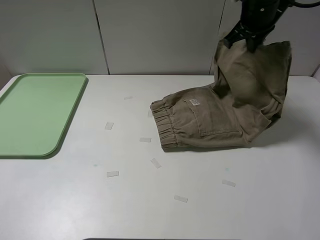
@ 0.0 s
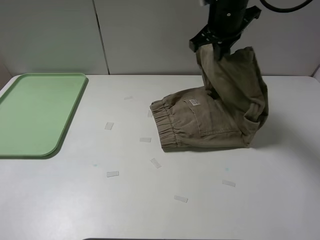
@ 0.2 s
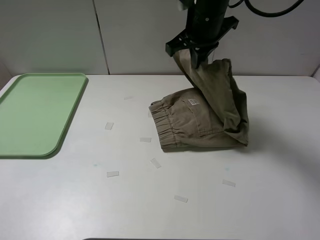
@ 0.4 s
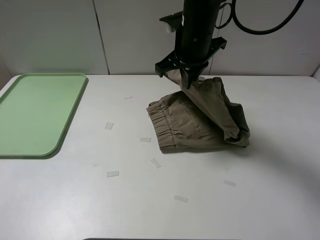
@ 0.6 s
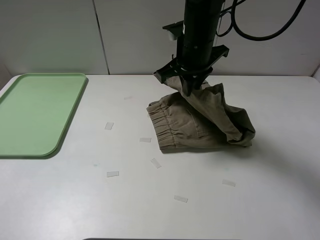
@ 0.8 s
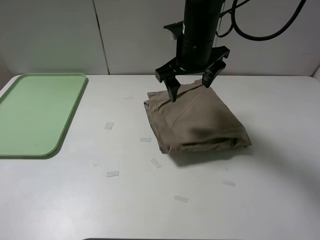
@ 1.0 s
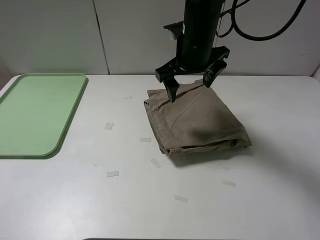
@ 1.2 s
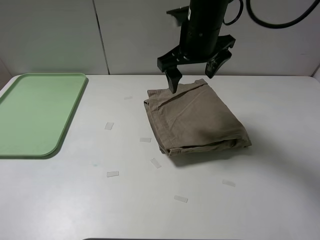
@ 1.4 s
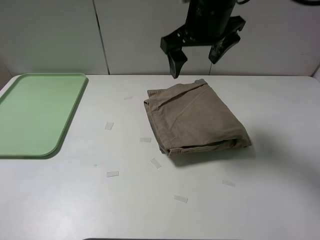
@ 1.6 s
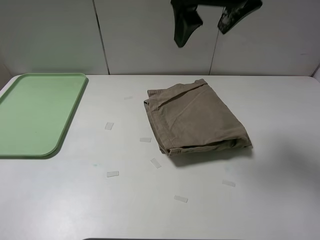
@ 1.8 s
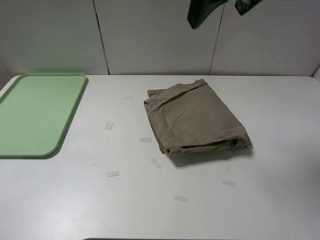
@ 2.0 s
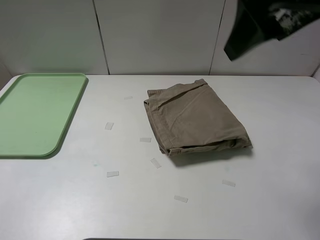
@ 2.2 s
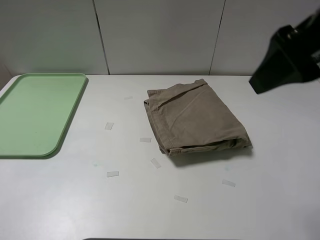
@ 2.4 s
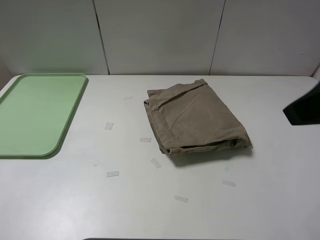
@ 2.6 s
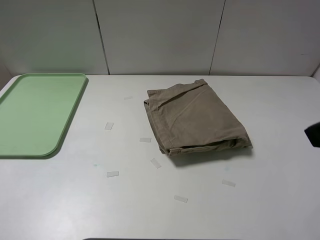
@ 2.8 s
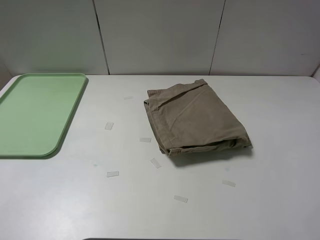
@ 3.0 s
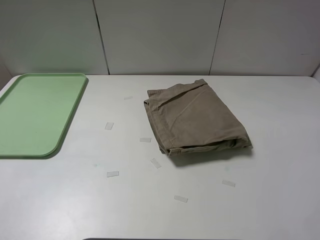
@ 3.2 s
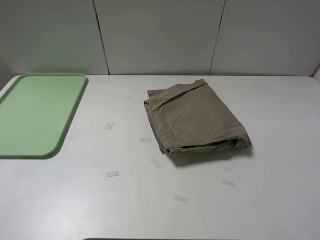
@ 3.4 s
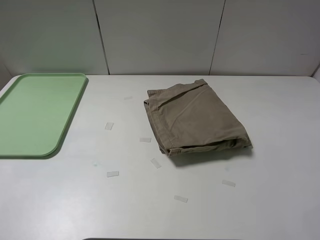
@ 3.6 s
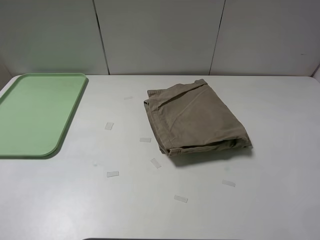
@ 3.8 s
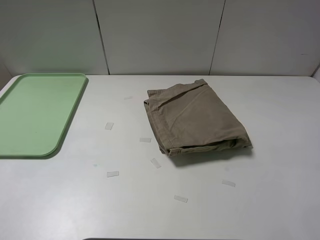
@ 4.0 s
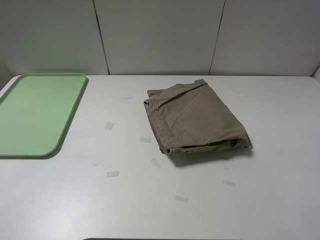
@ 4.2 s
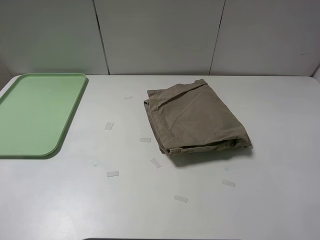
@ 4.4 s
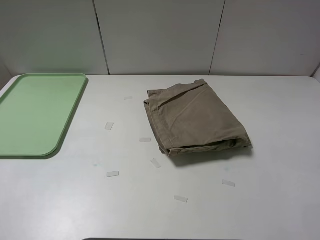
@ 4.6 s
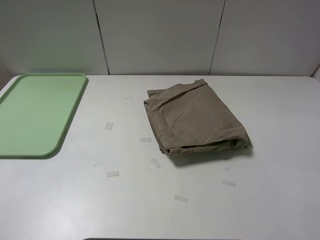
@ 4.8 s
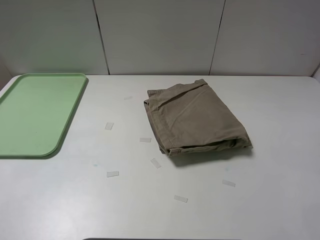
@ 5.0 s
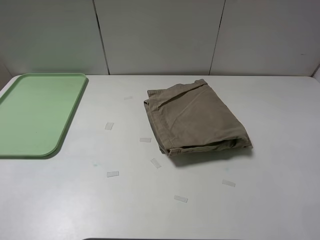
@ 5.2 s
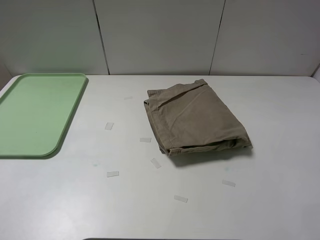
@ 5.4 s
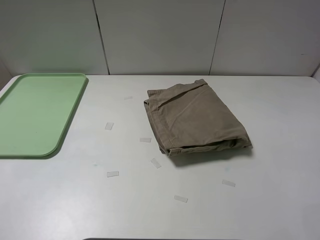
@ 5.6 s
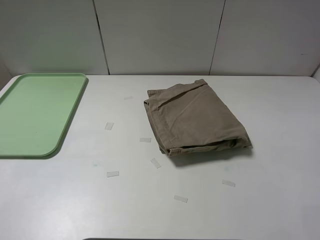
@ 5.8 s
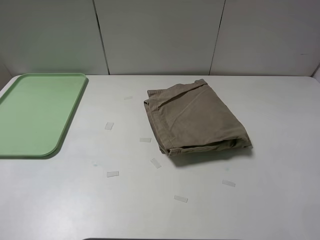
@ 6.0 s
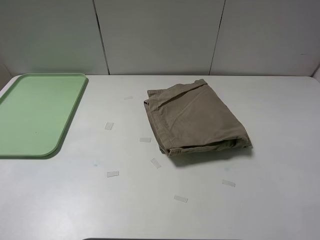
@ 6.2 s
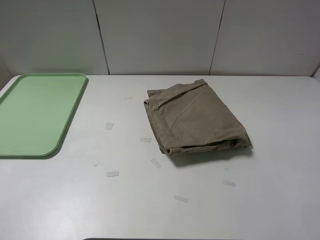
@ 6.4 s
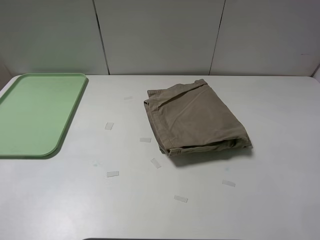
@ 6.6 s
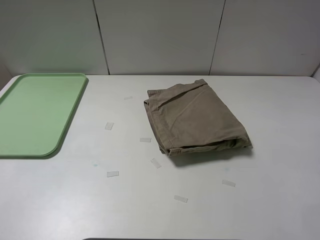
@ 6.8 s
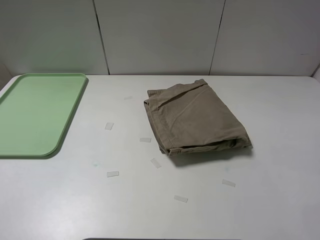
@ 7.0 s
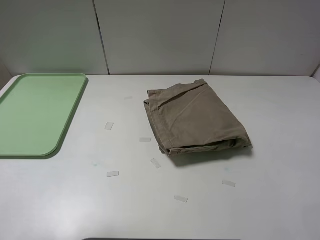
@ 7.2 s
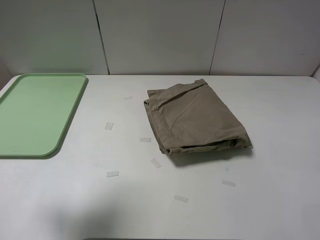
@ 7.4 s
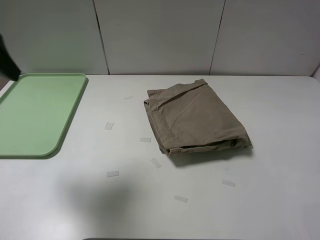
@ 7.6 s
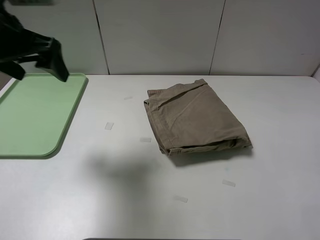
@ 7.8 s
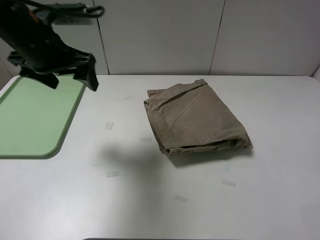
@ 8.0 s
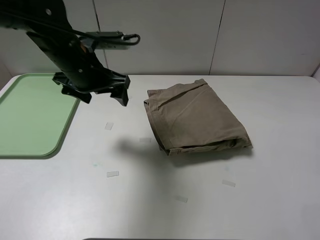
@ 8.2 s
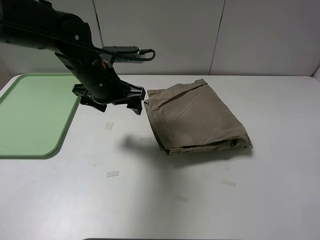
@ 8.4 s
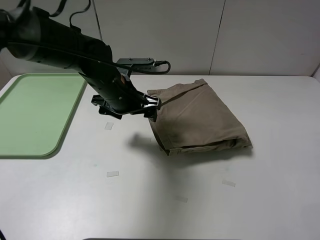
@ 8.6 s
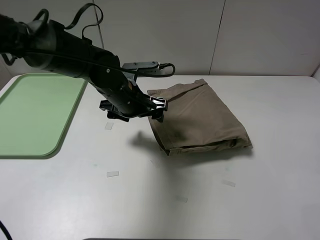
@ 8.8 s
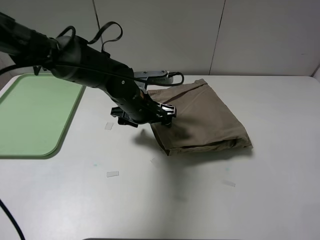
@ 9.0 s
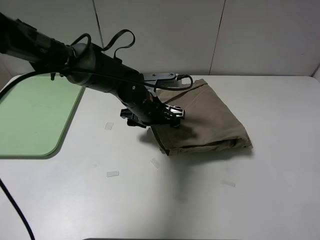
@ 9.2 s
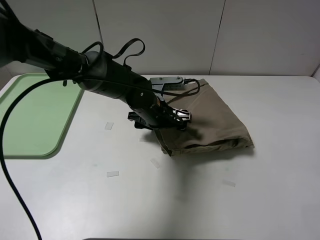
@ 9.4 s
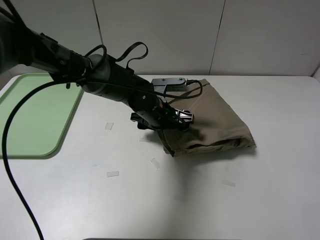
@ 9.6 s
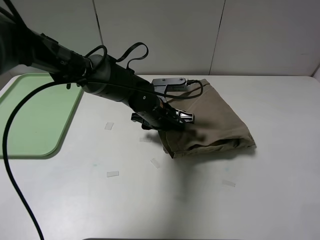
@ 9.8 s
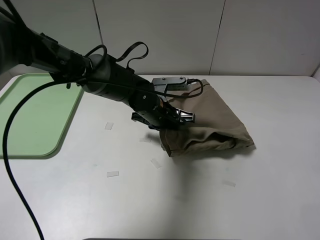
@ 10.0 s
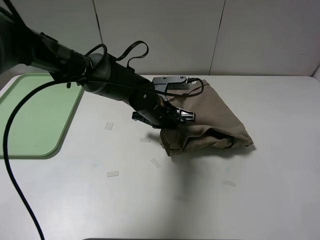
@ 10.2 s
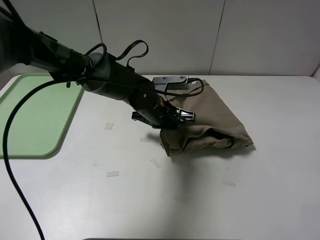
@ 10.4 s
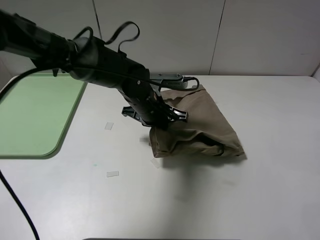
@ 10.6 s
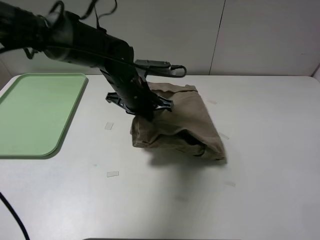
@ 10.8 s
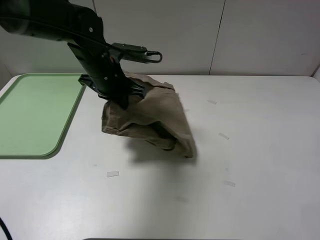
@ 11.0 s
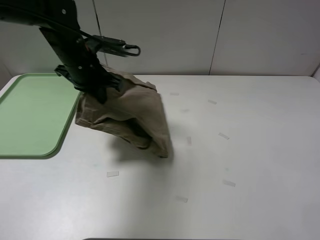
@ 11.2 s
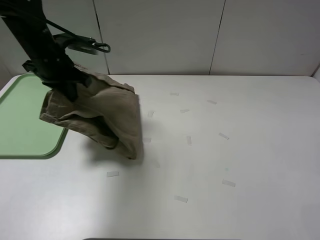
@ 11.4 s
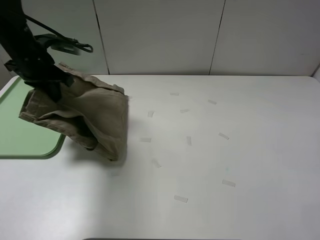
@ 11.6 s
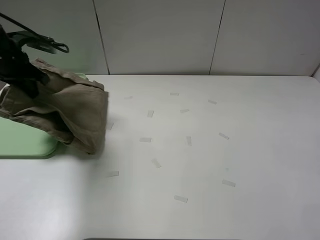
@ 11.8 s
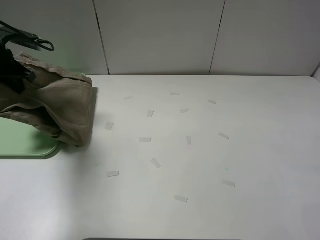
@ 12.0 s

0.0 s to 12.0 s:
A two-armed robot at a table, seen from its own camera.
Task of the whole recording: fold the khaki jeans in half with two grippers, then fold them in half again, and use the left claw to place the folded fold khaki jeans on the tray.
Step, 1.2 to 10.0 s: Grasp the khaki trousers with the left gripper.
0.0 to 1.6 s: The right gripper is displaced backward and to the left by about 15 cm, and opens up.
1.6 to 3.0 s: The right gripper heads backward and to the right, covering some 30 cm.
4.4 to 6.0 s: Neither gripper changes place.
6.0 to 7.6 s: The left gripper heads forward, covering roughly 25 cm.
7.6 to 9.0 s: The left gripper moves to the right and downward, approximately 30 cm.
9.0 to 10.4 s: The left gripper closes.
10.4 to 12.0 s: The left gripper heads to the left, covering approximately 35 cm.

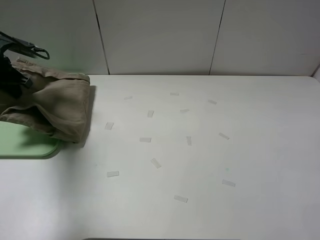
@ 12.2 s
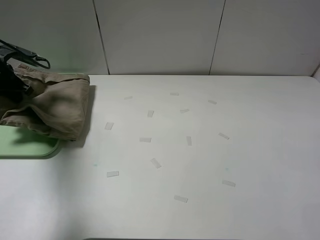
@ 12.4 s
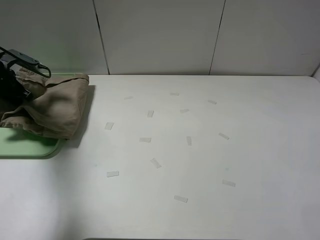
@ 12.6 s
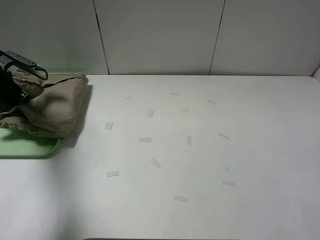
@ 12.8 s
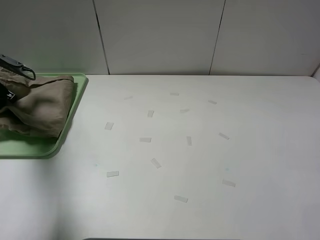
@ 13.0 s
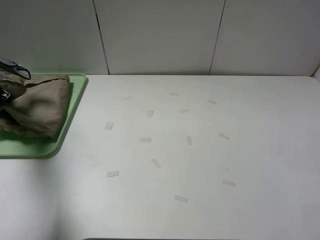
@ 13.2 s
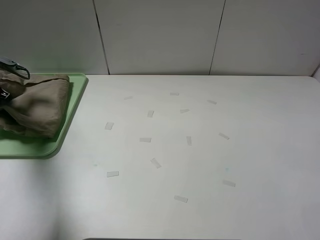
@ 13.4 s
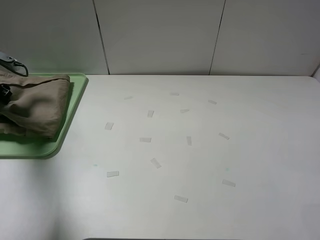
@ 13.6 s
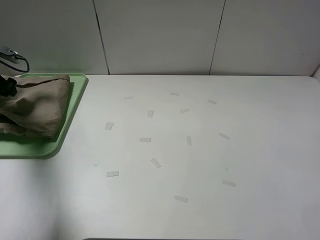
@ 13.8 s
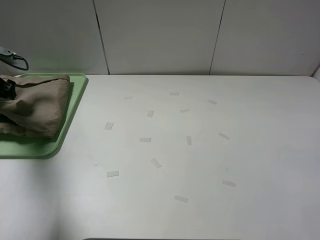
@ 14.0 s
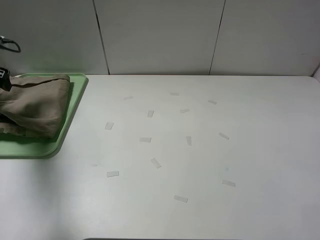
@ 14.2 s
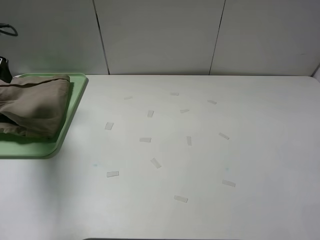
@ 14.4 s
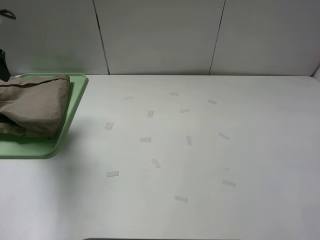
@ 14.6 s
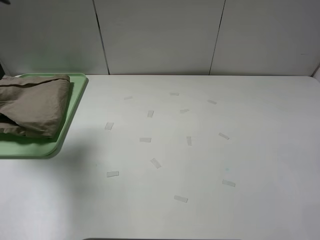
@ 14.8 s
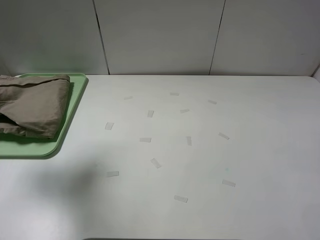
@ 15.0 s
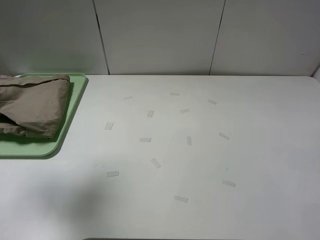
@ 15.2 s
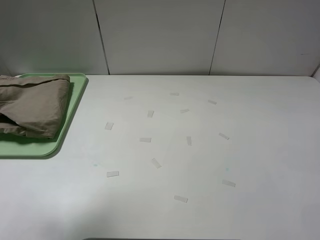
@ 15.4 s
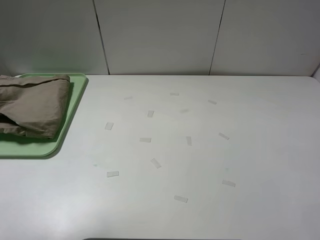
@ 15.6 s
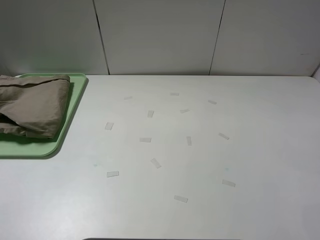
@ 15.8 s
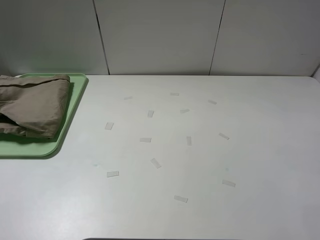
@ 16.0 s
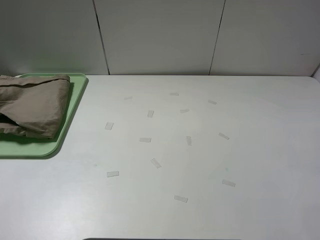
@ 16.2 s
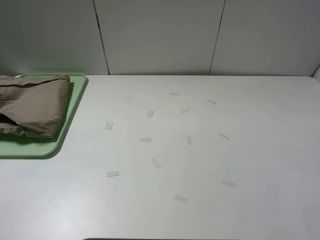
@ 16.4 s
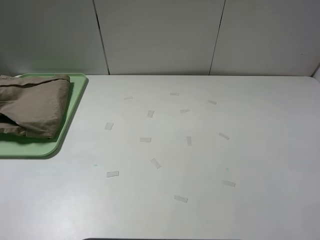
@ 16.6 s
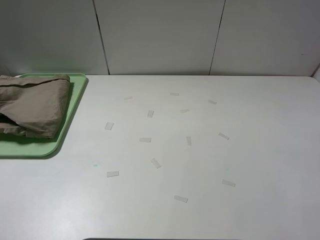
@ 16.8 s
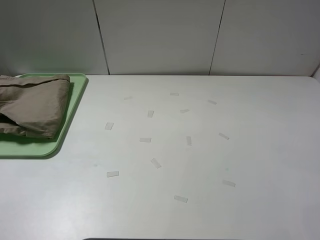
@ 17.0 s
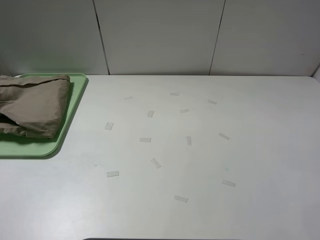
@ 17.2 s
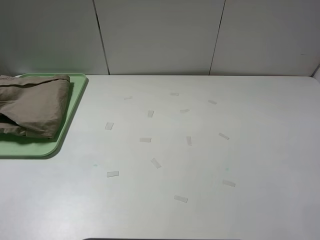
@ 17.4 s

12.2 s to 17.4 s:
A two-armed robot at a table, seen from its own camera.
Task of the whole recording: fold the khaki jeans in half with two grippers, then fold them in half again, and use the left claw to place the folded fold khaki jeans on the tray.
12.2 to 14.0 s: The left gripper travels to the left by about 5 cm, and opens up.
14.0 to 15.6 s: The left gripper shifts roughly 40 cm backward, upward and to the right.
15.6 to 17.4 s: The left gripper moves downward and backward, some 15 cm.
